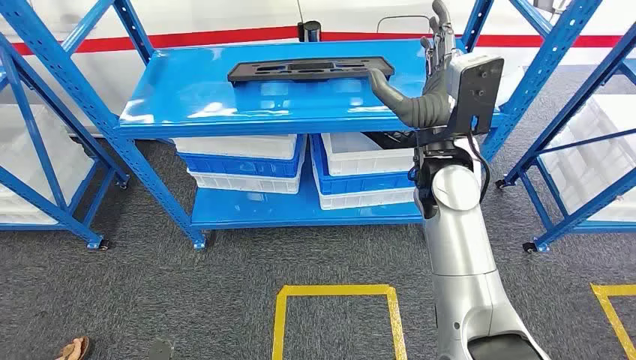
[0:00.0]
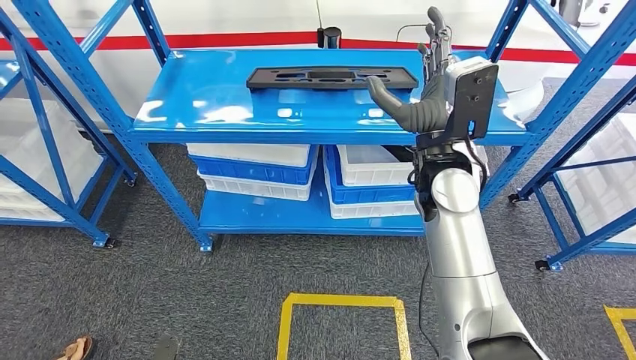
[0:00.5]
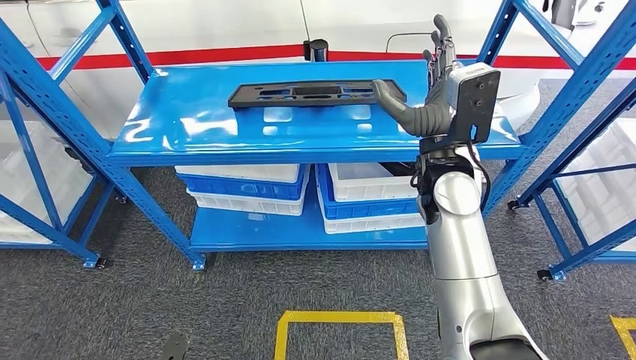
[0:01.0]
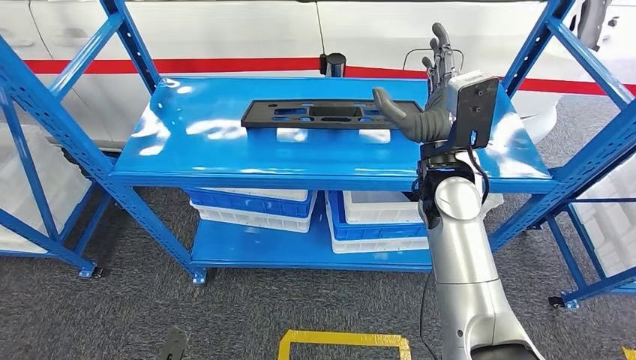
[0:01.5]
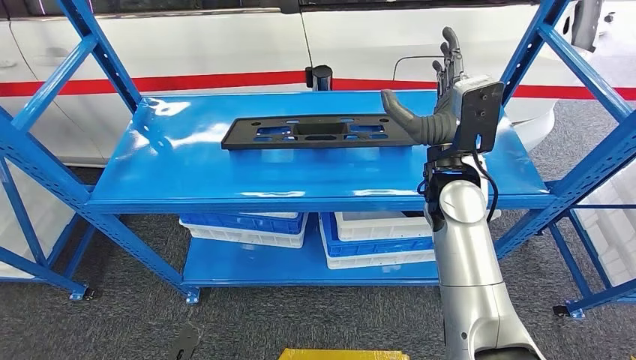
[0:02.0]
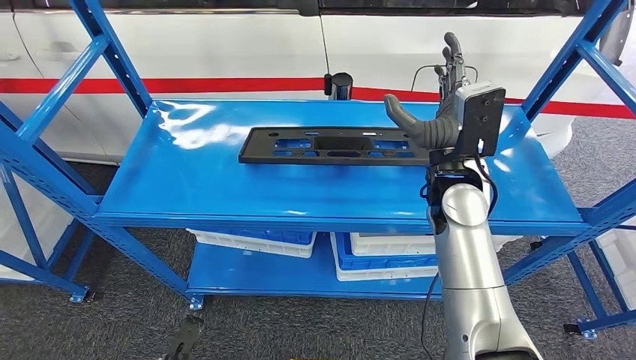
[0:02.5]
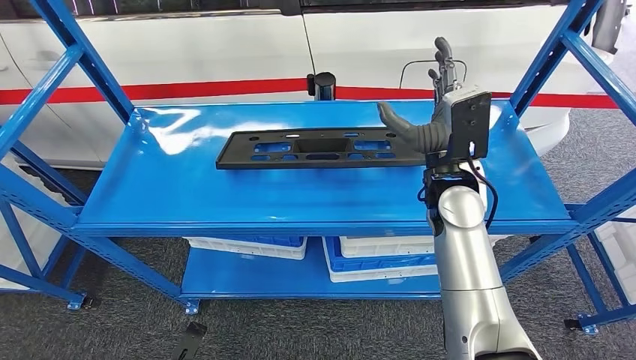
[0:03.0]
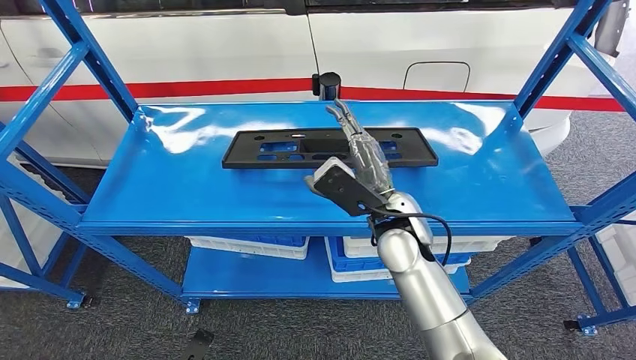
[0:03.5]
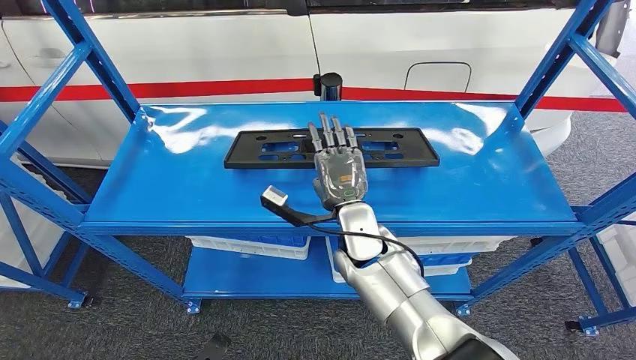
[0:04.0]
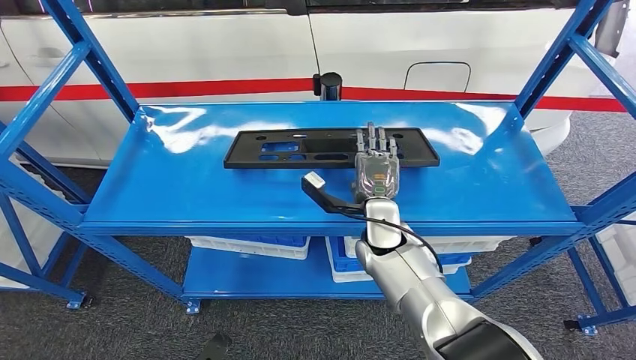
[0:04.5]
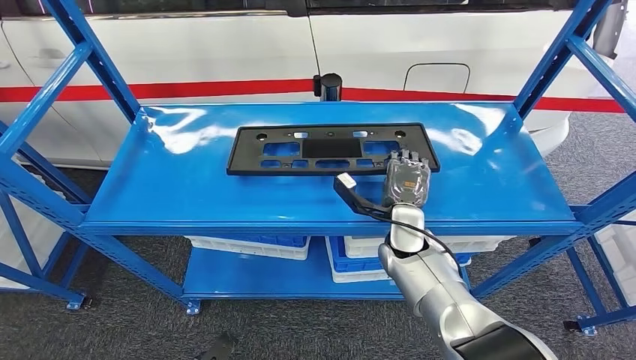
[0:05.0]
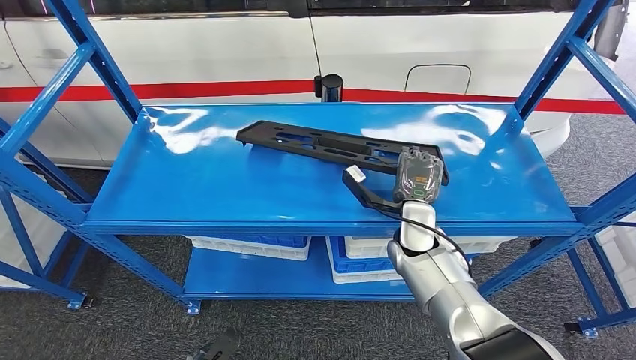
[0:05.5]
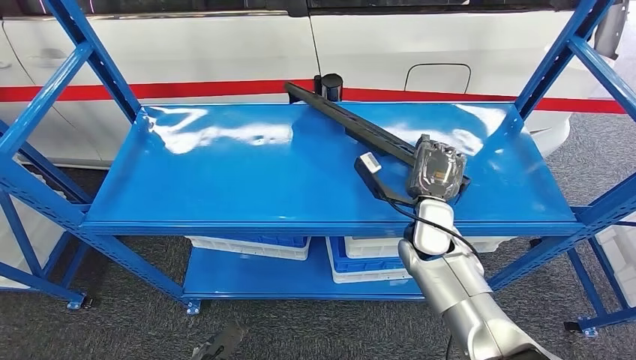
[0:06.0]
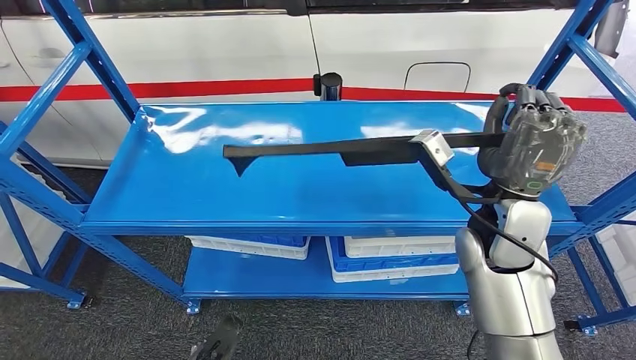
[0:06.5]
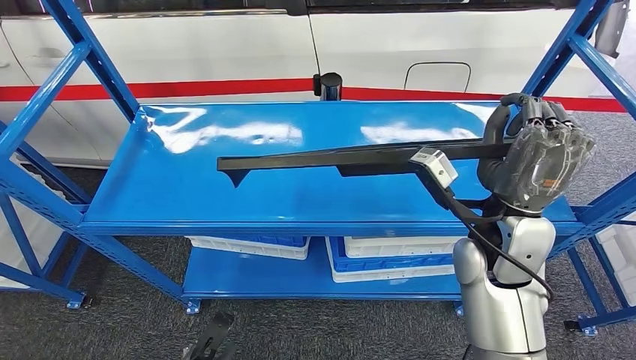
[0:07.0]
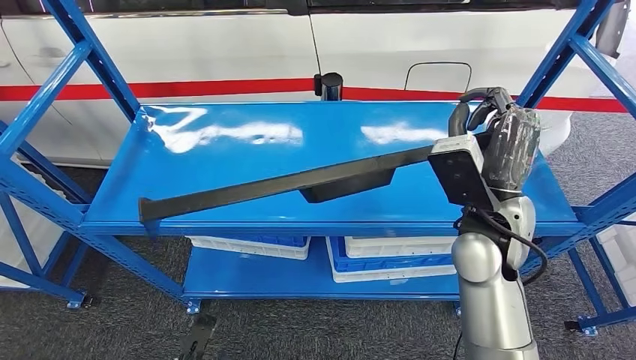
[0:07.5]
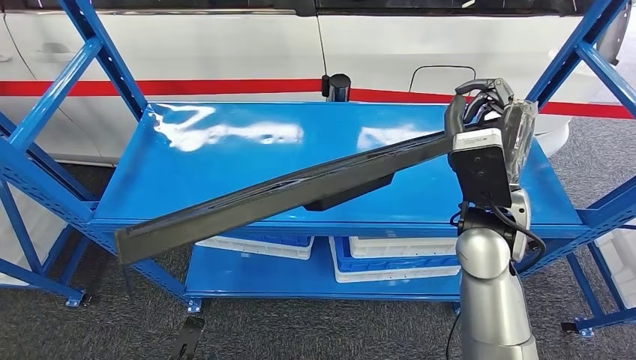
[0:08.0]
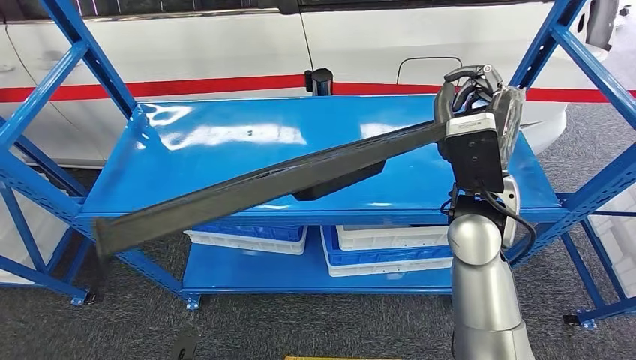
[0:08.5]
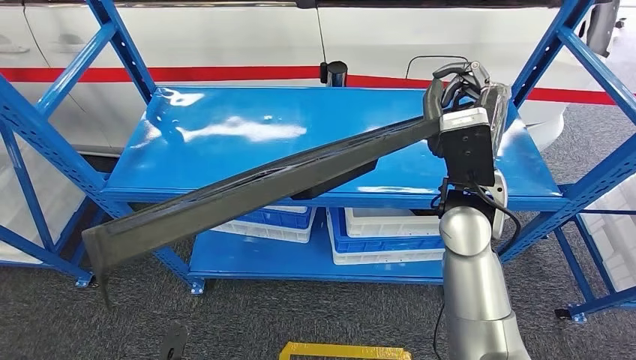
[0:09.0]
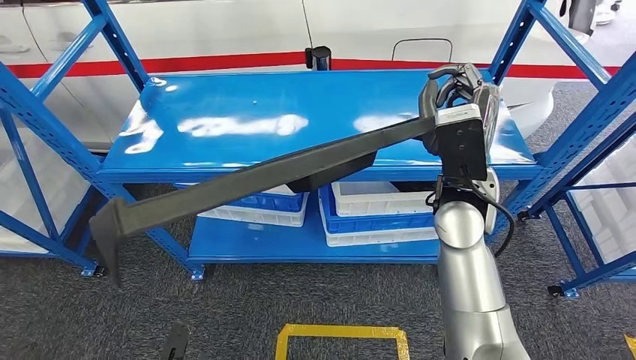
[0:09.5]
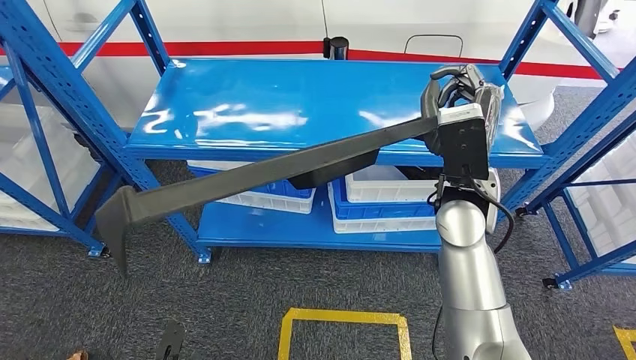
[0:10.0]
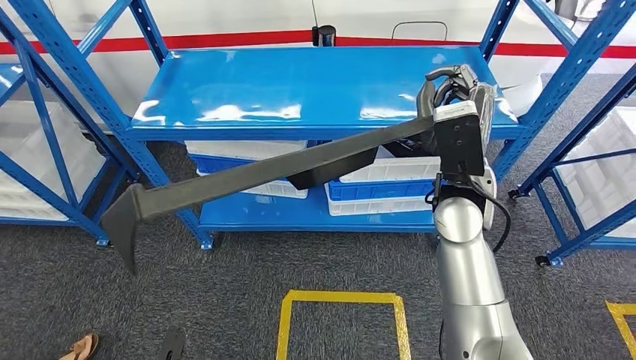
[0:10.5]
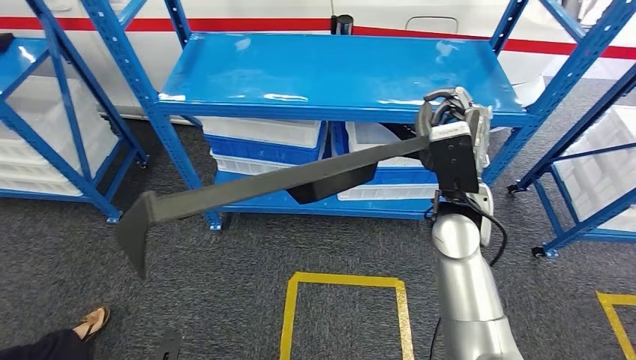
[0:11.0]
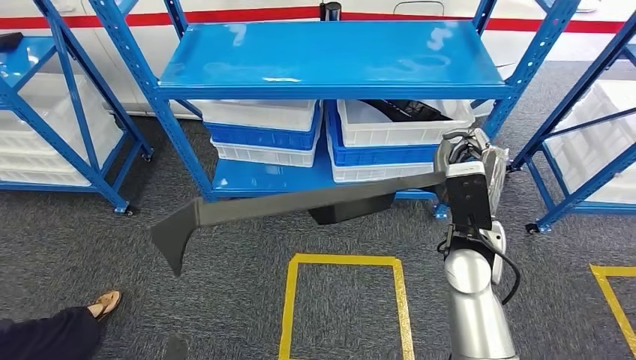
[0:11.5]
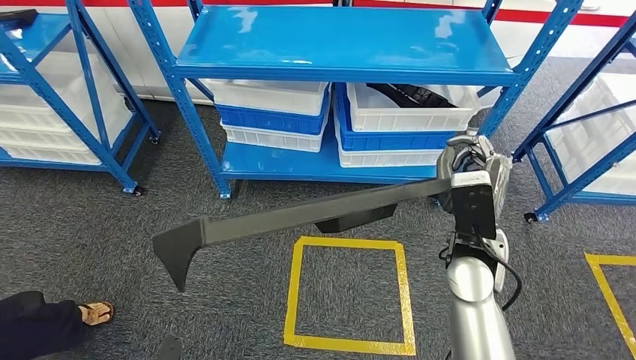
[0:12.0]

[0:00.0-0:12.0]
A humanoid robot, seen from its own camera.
Step, 0:00.0 to 0:11.0: Pick up the large material from the shelf.
0:04.0 to 0:06.0: The right hand travels to the right by some 10 cm.

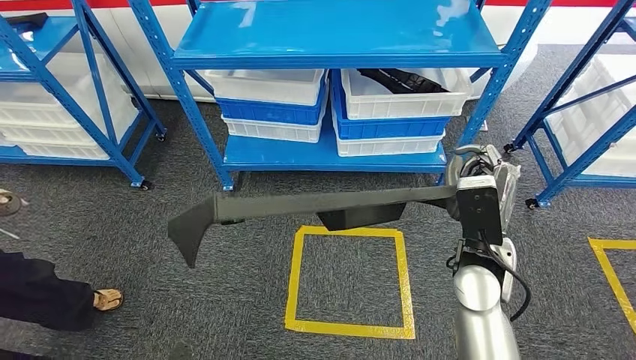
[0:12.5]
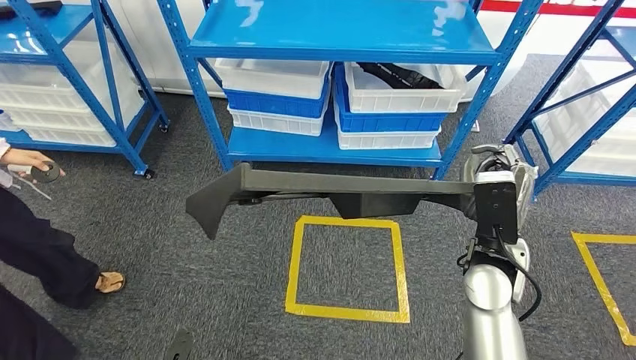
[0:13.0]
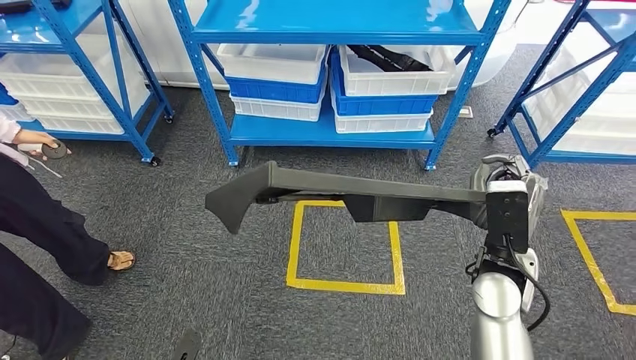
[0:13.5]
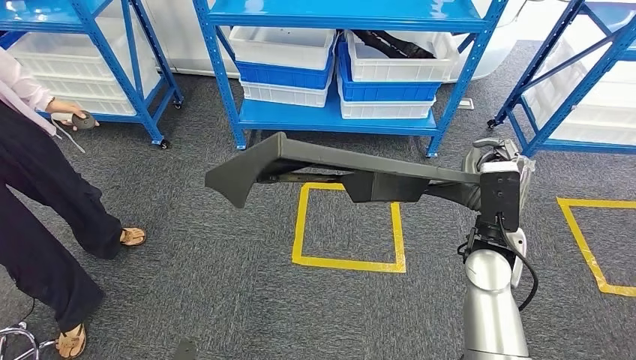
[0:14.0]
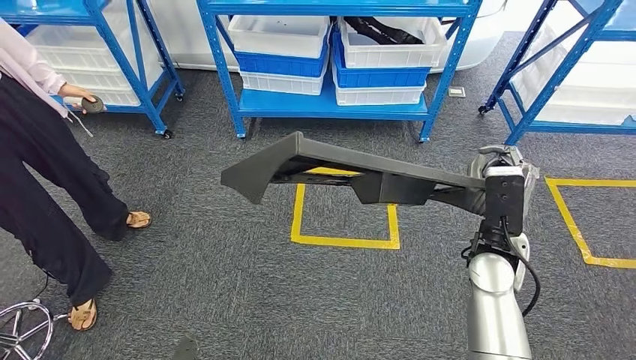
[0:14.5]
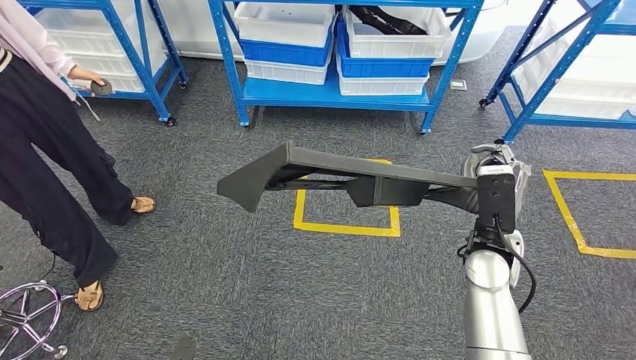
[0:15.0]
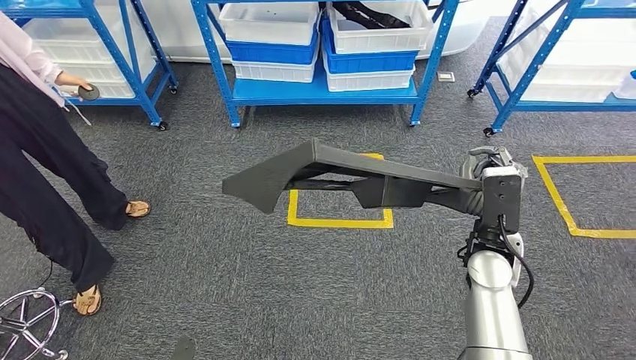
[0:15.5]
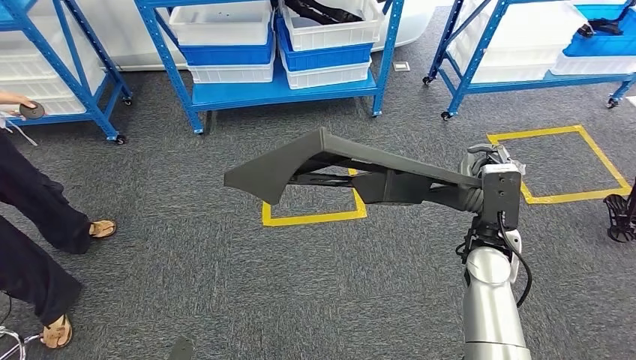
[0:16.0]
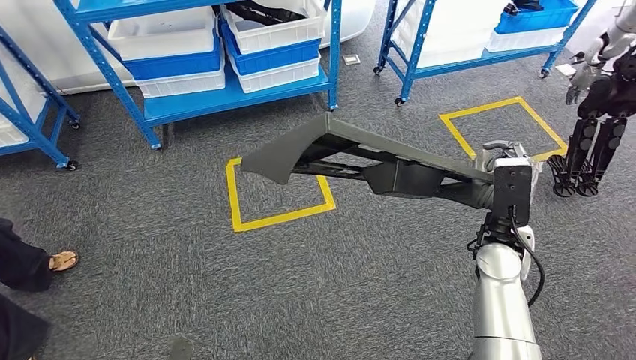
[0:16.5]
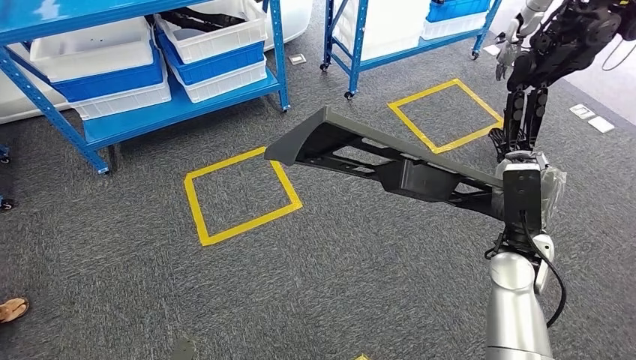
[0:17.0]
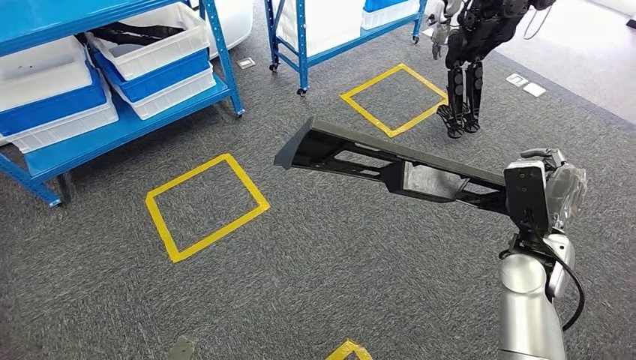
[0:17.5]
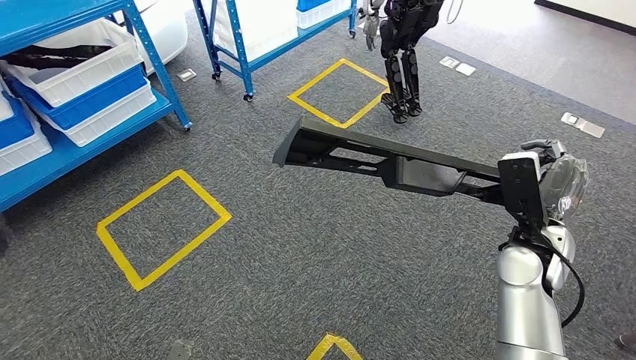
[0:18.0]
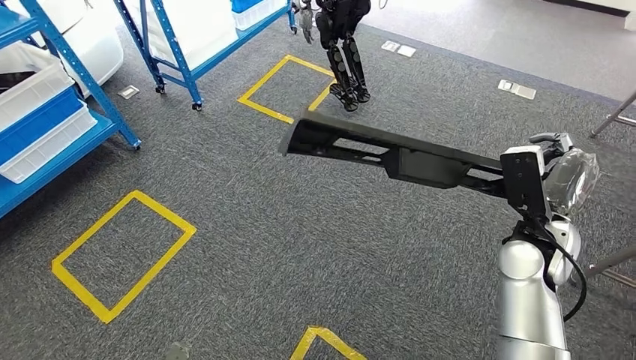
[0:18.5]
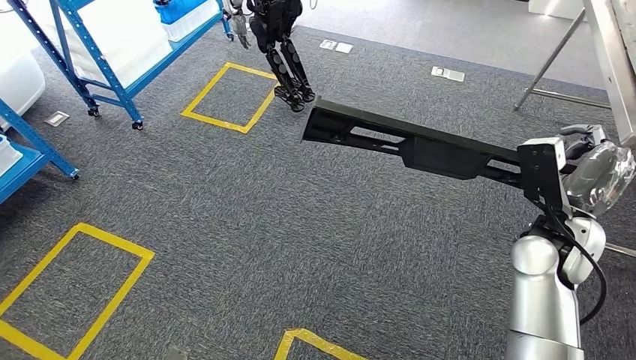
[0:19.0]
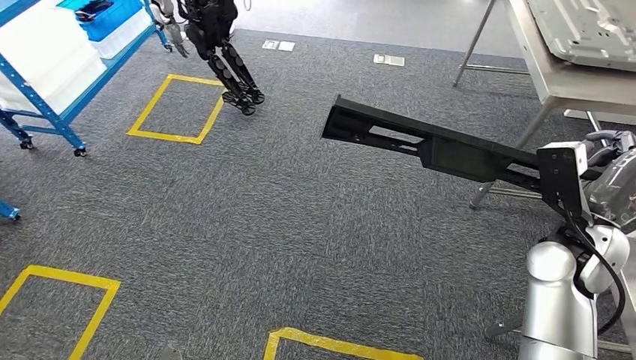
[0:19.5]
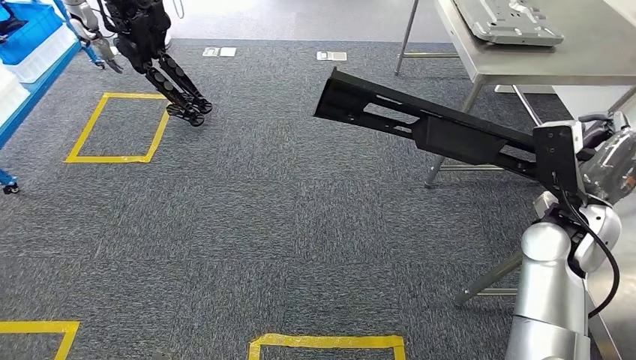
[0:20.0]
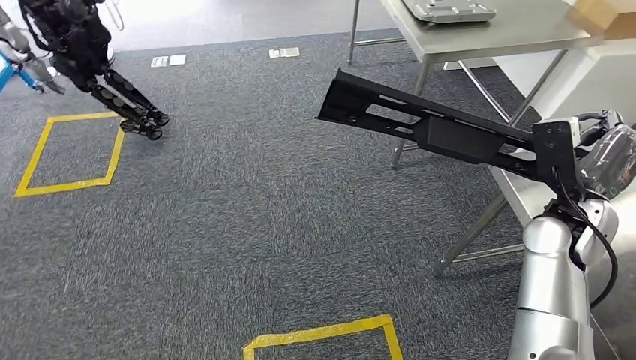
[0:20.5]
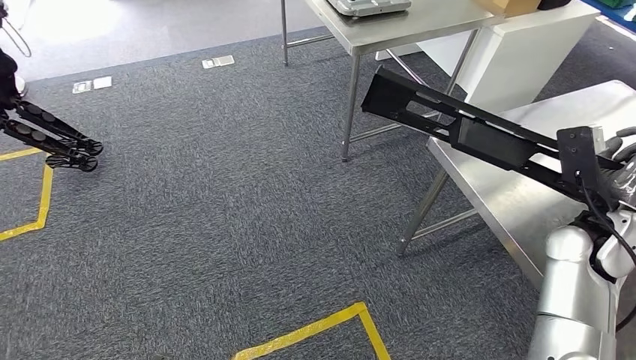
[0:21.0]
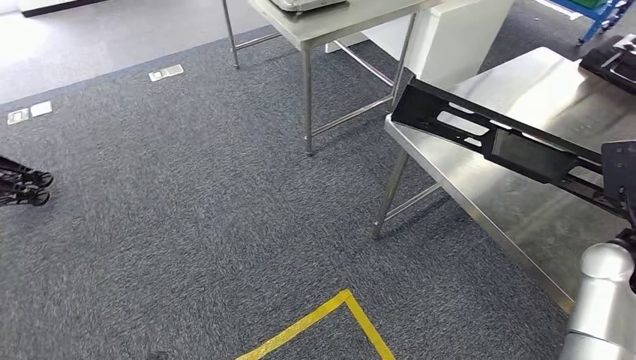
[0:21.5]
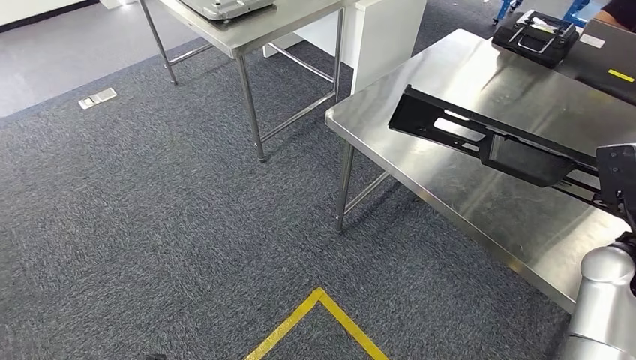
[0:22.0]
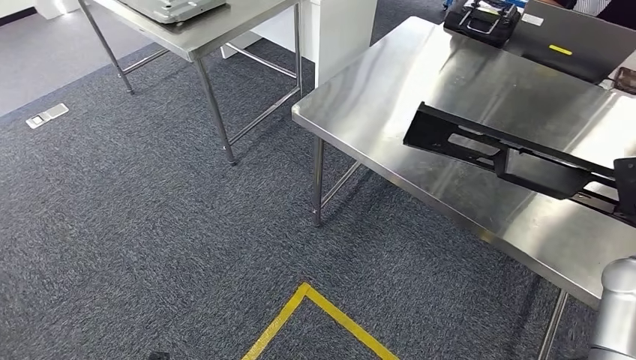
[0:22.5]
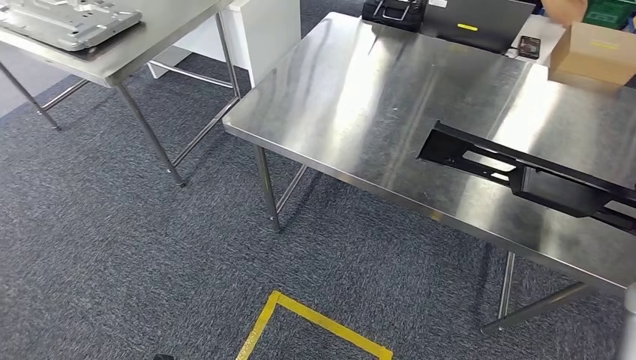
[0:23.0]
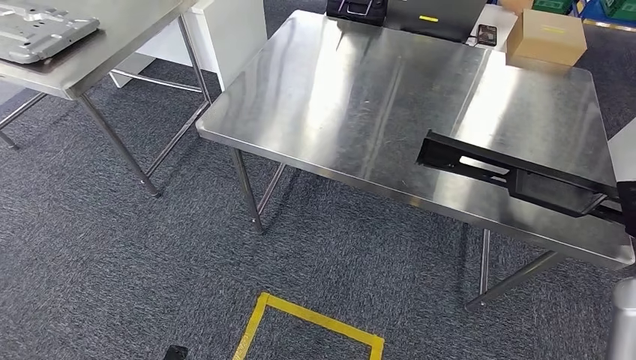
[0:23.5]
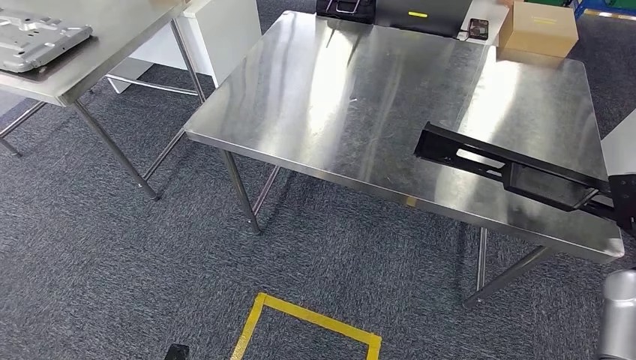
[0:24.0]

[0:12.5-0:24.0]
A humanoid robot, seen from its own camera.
Step, 0:12.5 to 0:22.5: Move the large material to the workbench.
